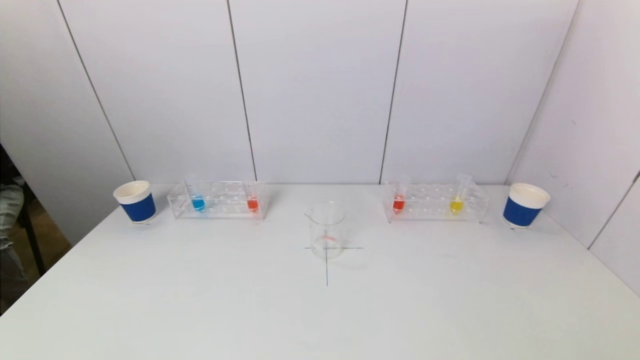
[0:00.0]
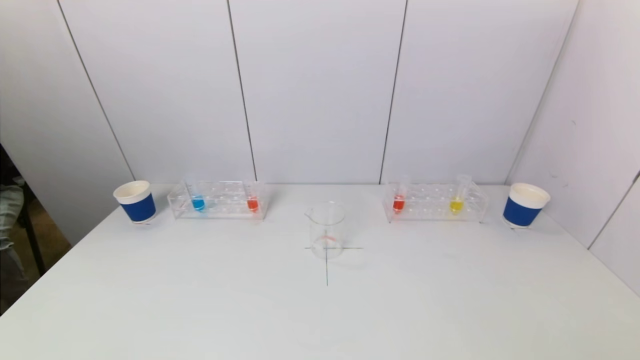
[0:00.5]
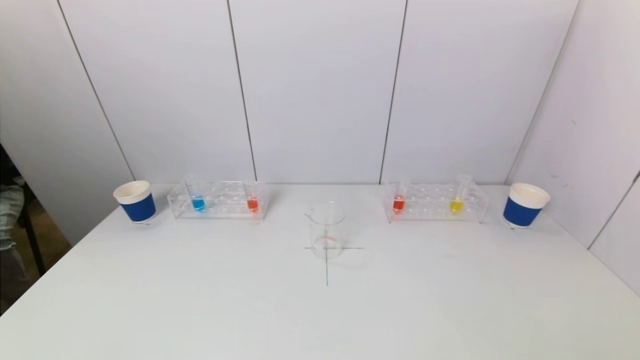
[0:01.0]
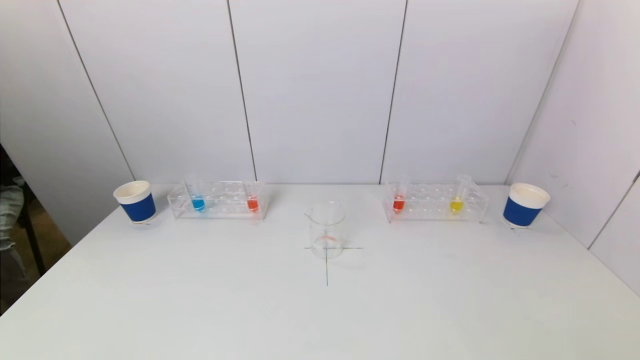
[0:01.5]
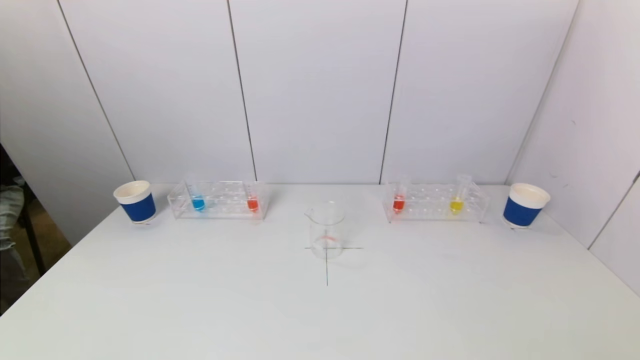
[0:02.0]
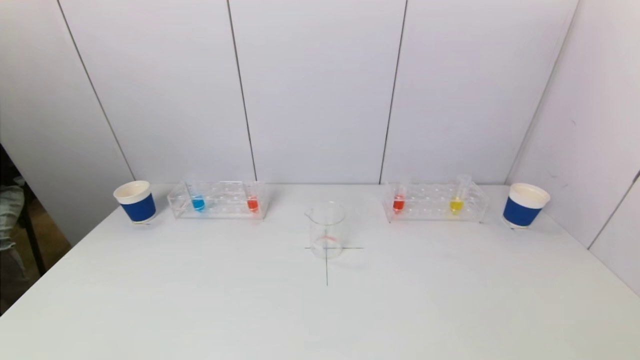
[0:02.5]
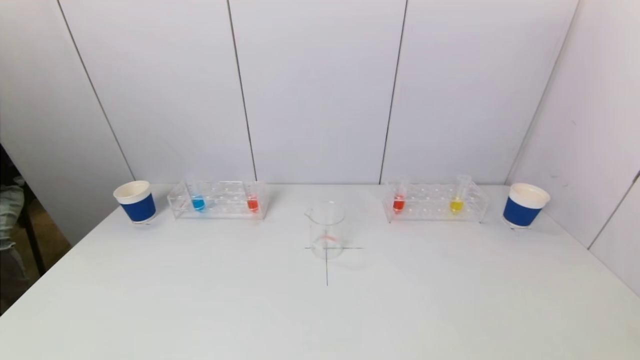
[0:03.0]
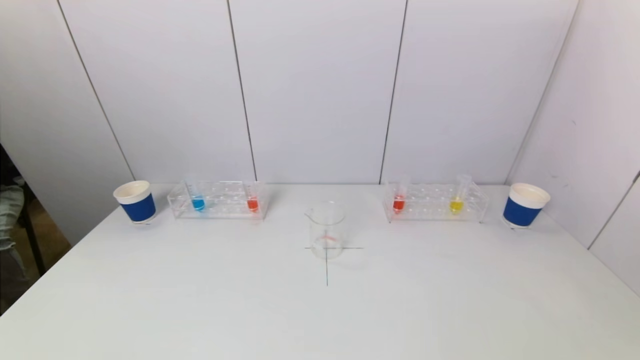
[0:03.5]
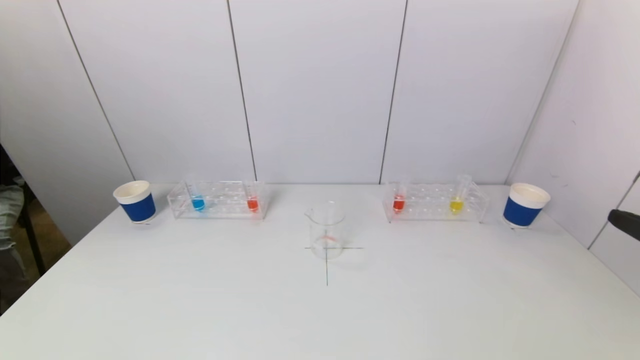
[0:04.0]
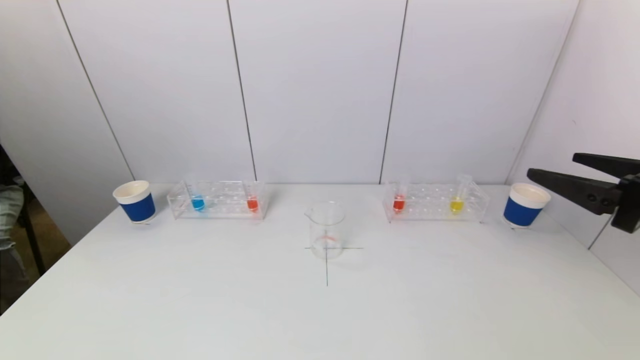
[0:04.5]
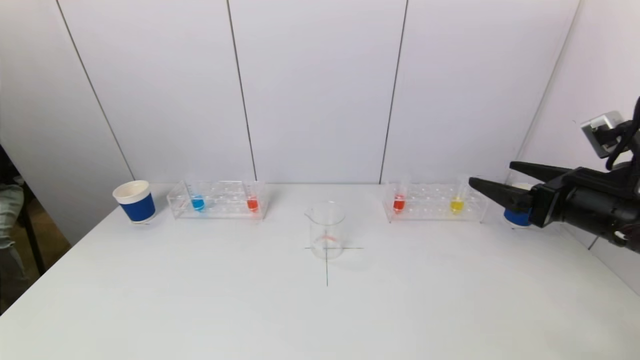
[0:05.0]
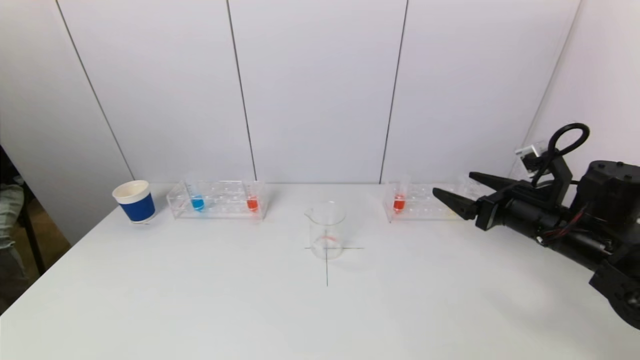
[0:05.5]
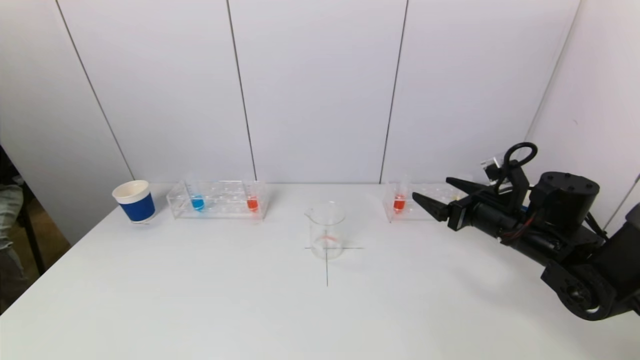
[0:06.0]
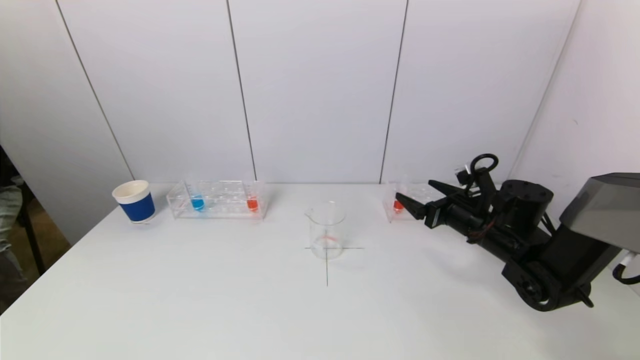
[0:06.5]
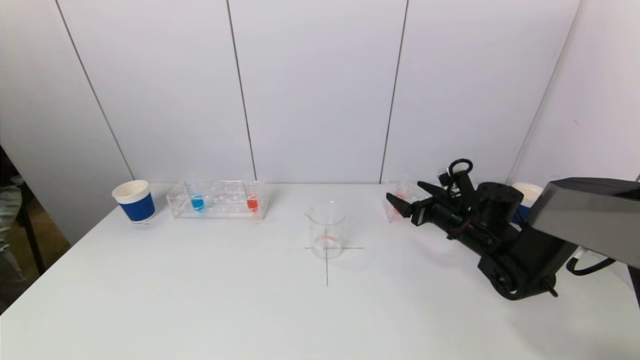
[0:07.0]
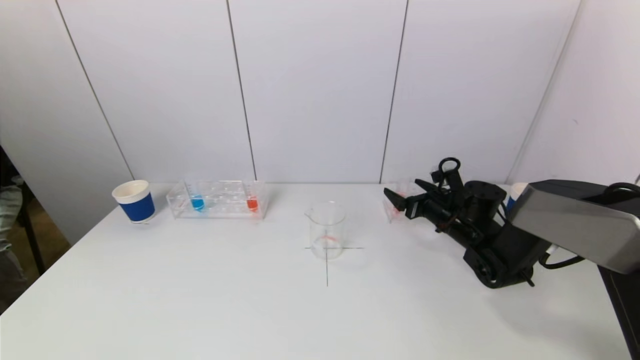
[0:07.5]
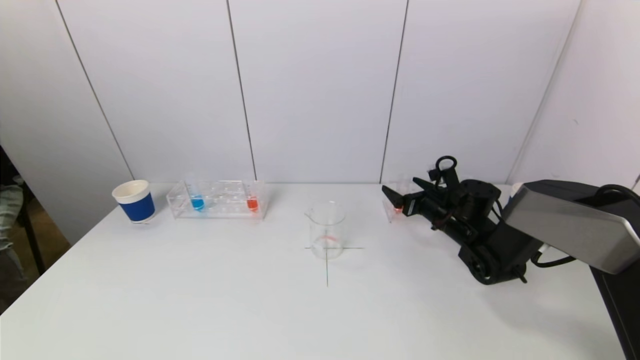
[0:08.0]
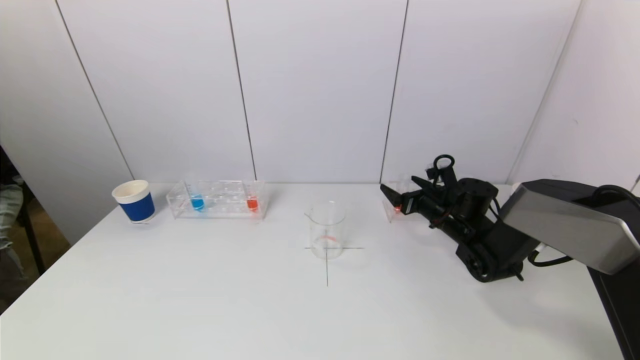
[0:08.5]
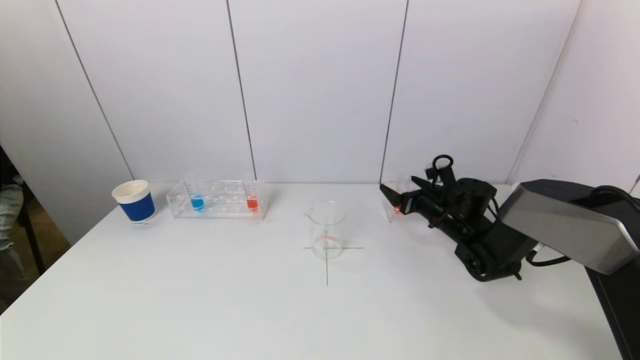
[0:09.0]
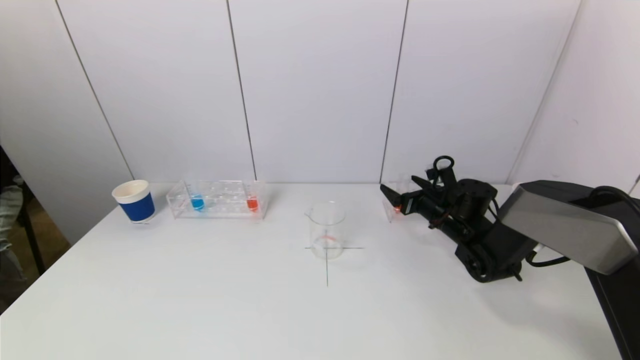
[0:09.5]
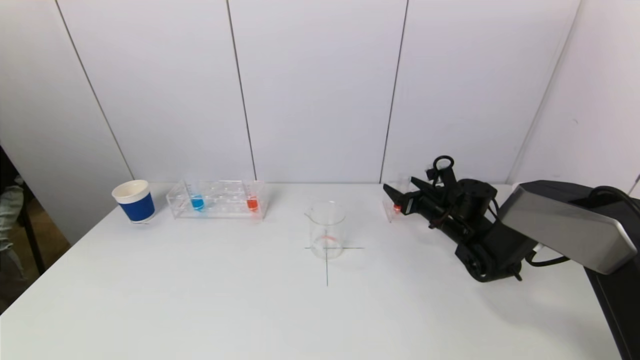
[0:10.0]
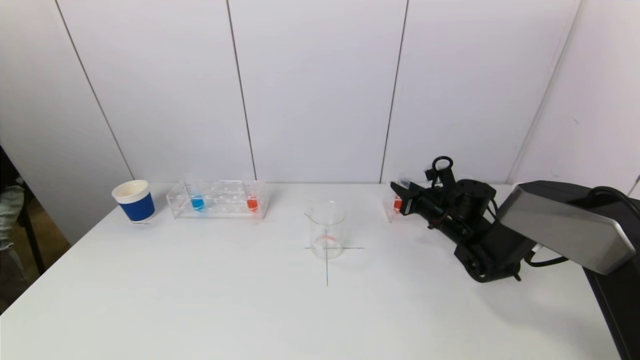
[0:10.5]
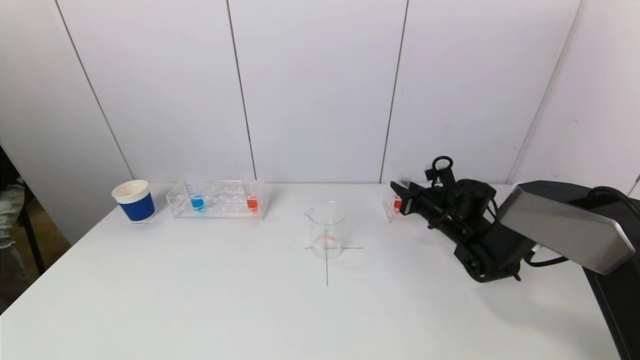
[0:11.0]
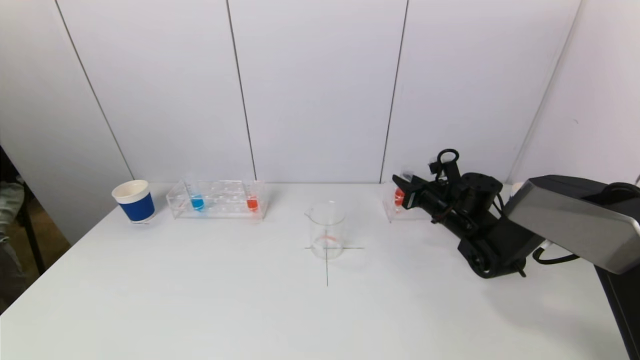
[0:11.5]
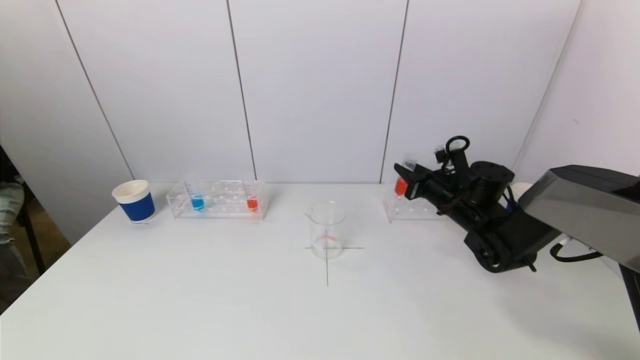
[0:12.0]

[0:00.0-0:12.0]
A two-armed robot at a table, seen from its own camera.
Task of the whole recording: pick up a test tube with pigment on left test tube rack and a test tube with pigment on right test tube rack by grippers and pour them into the beaker.
Step, 0:00.0 to 0:10.5: Grasp the red reagent with the right gripper.
0:04.0 to 0:06.0: The right gripper shifts approximately 30 cm forward and downward.
0:06.0 to 0:08.0: The right gripper shifts about 15 cm forward and downward.
0:08.0 to 0:10.0: Both grippers stay about where they are.
0:10.0 to 0:12.0: The right gripper travels upward by roughly 5 cm, and closes up.

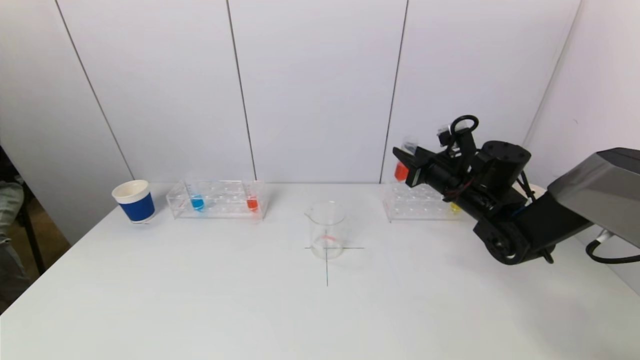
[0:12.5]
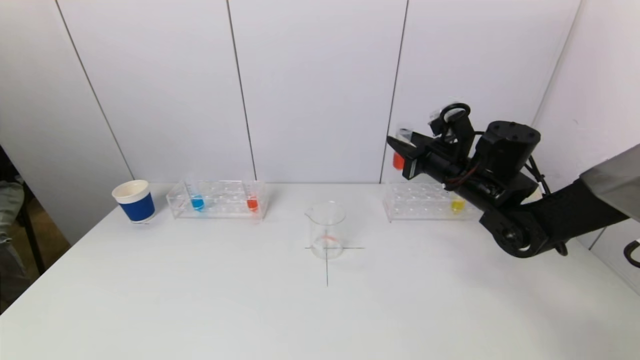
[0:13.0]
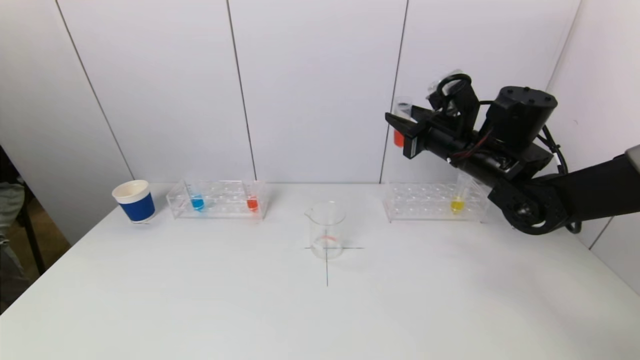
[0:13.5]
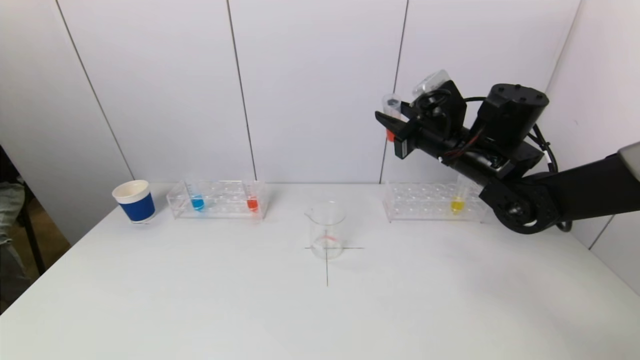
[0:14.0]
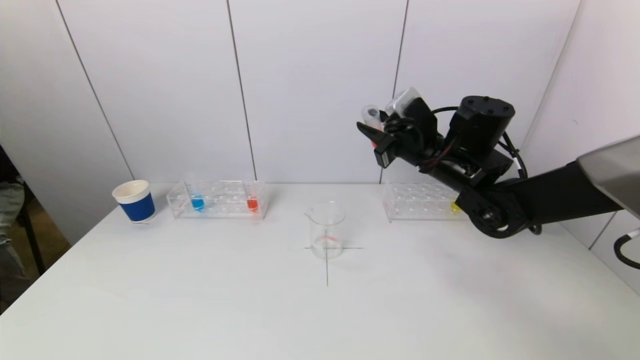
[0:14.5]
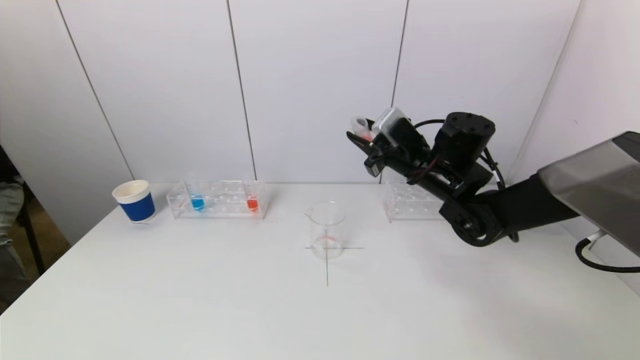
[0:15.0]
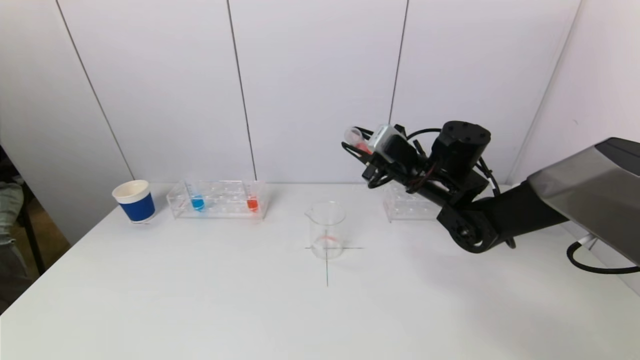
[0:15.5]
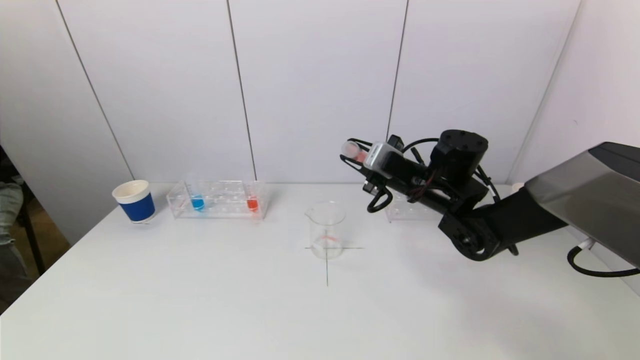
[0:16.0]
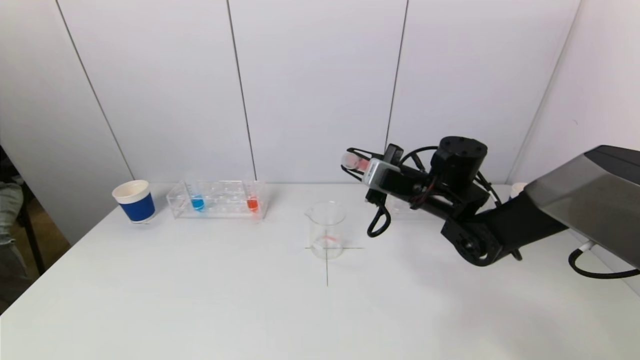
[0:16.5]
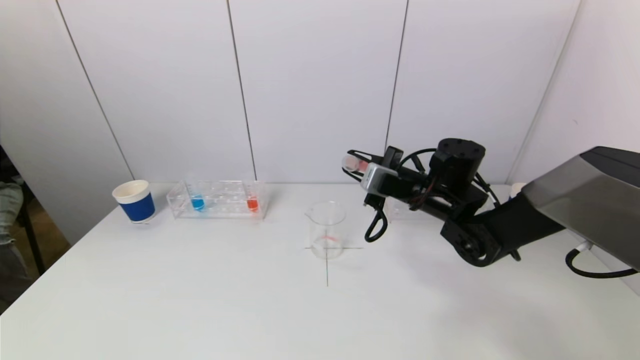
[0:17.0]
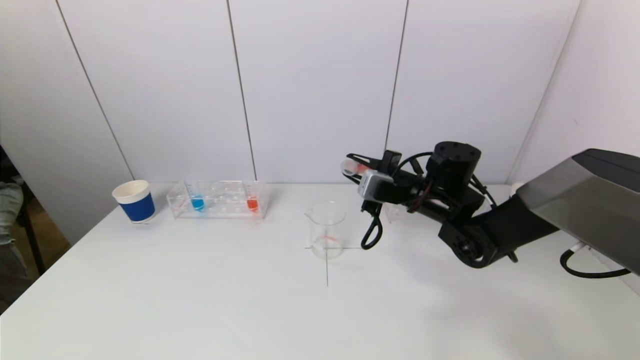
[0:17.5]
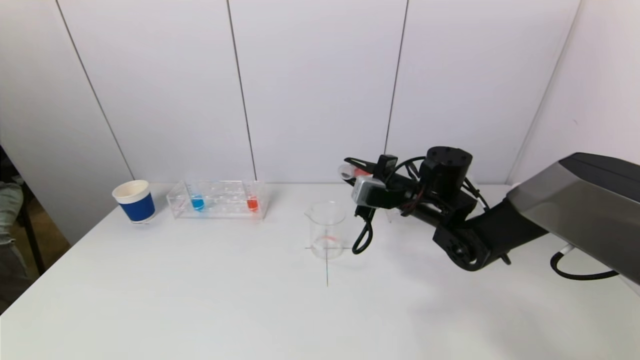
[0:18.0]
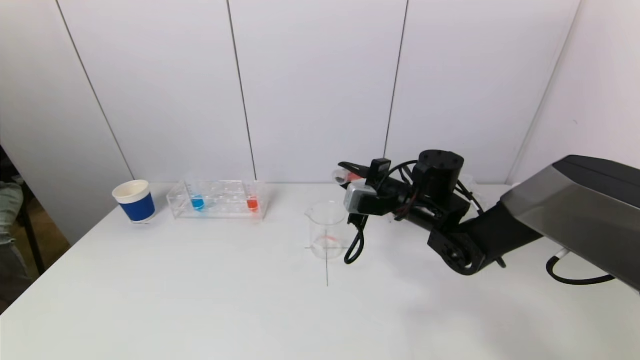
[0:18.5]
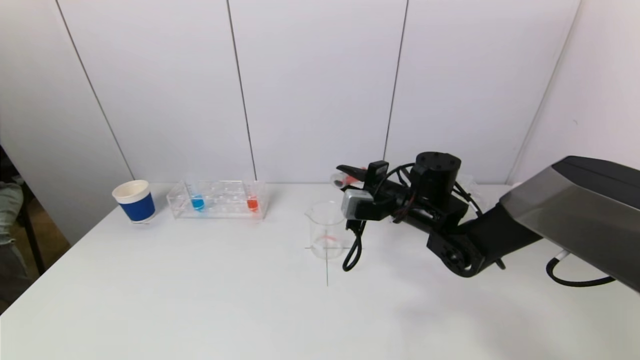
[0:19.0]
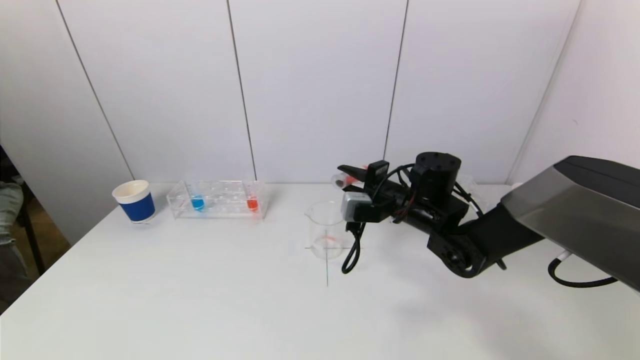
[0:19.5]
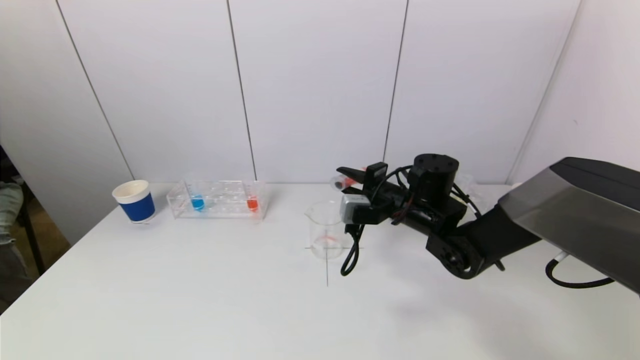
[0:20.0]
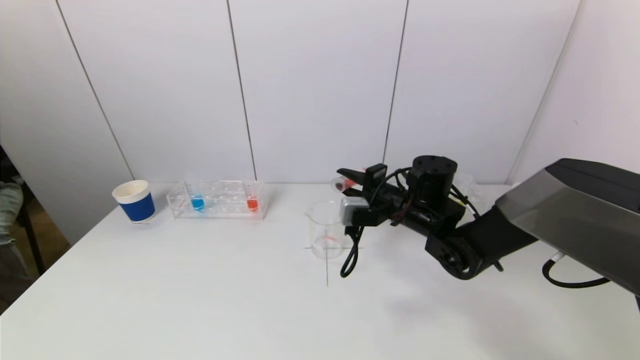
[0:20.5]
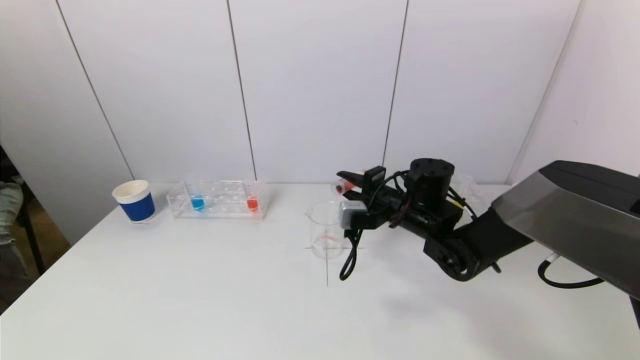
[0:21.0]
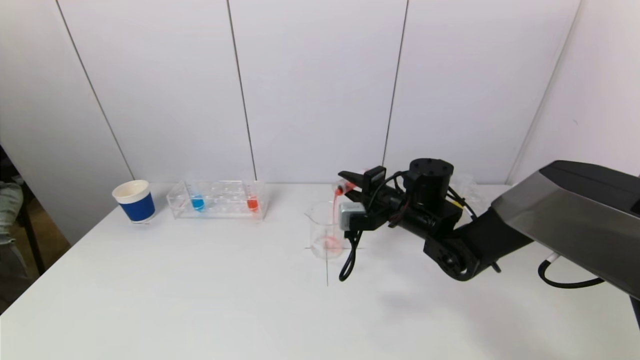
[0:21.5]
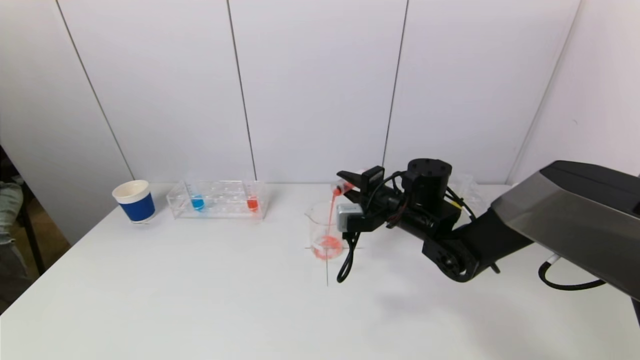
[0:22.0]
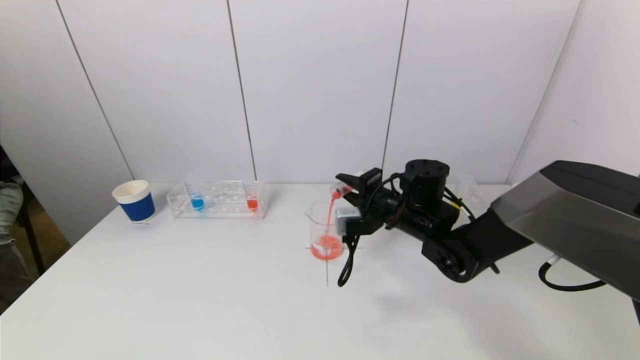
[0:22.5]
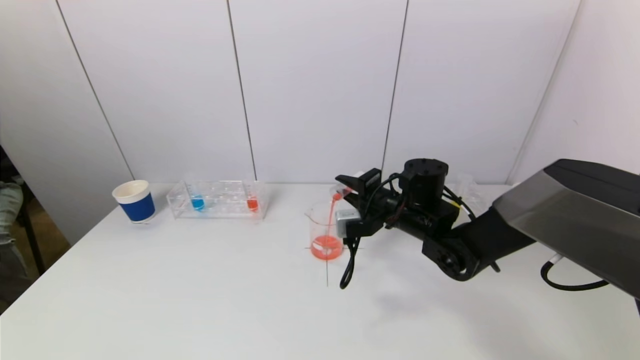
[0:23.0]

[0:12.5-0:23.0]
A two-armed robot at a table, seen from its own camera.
Task of the whole recording: pick up a test tube with pigment on left test tube rack and a test tube with pigment on right test tube rack by grippers and pour them into the beaker.
0:12.5 to 0:14.5: The right gripper moves upward and to the left, some 10 cm.
0:14.5 to 0:16.5: The right gripper is displaced downward by approximately 5 cm.
0:16.5 to 0:19.0: The grippers stay close to where they were, moving slightly.
0:19.0 to 0:23.0: The grippers make only small movements.
